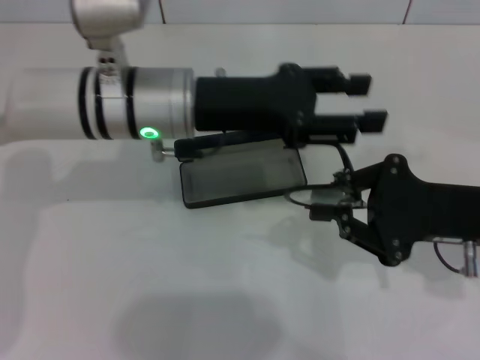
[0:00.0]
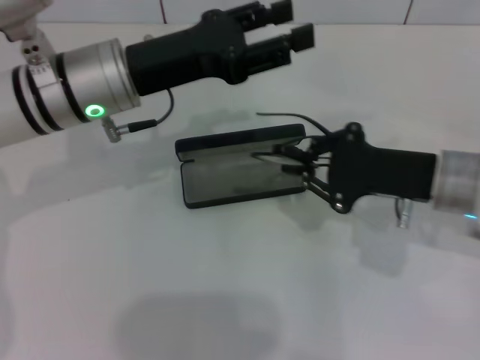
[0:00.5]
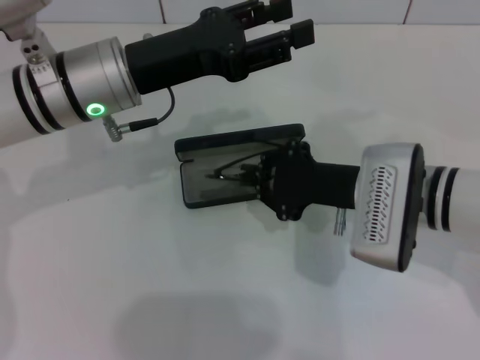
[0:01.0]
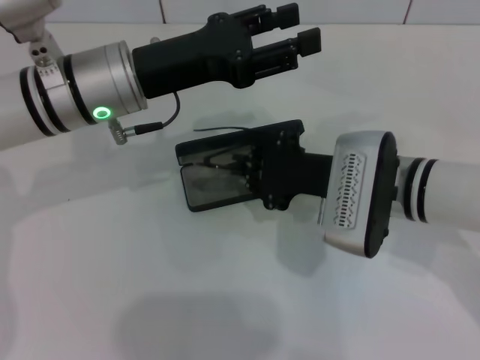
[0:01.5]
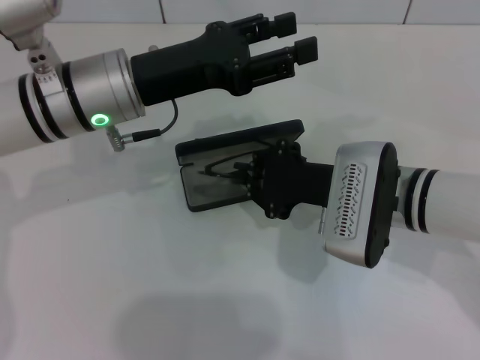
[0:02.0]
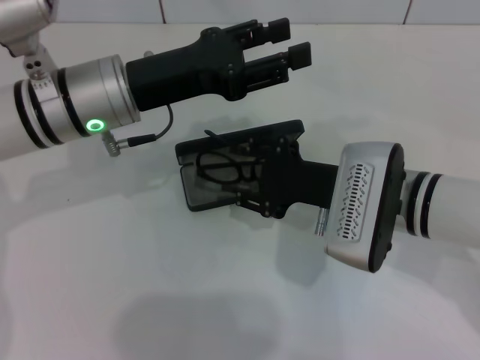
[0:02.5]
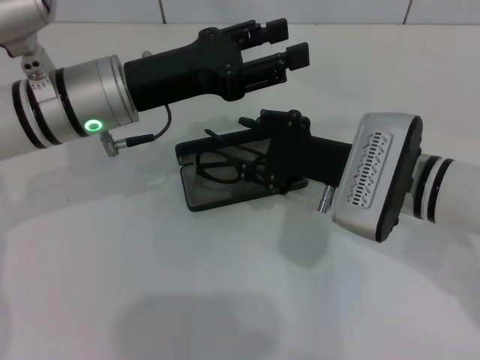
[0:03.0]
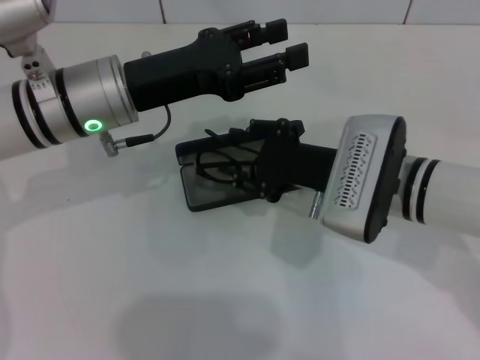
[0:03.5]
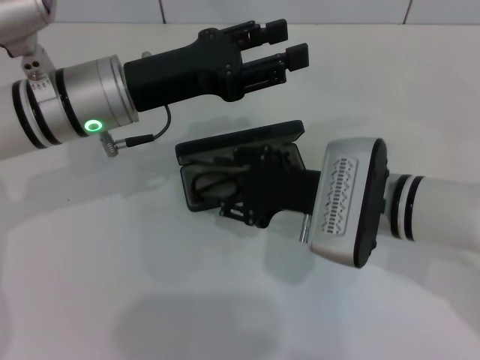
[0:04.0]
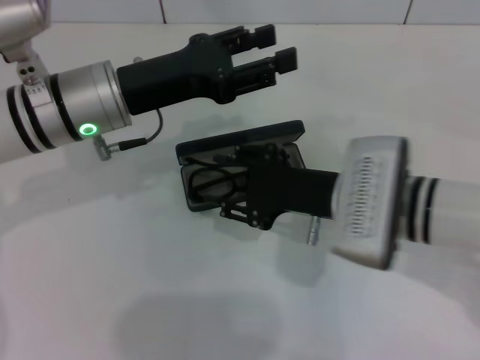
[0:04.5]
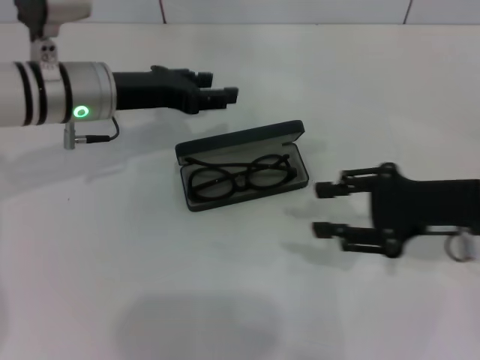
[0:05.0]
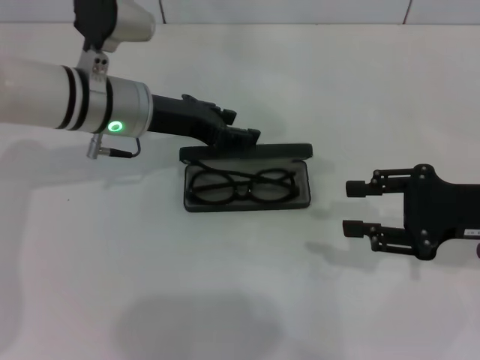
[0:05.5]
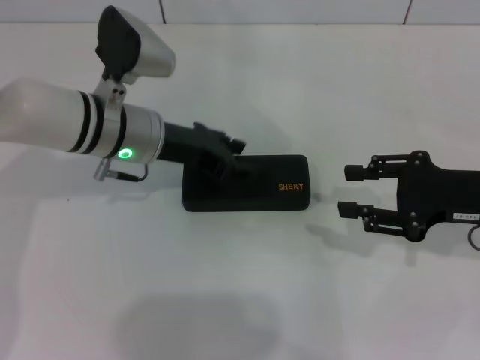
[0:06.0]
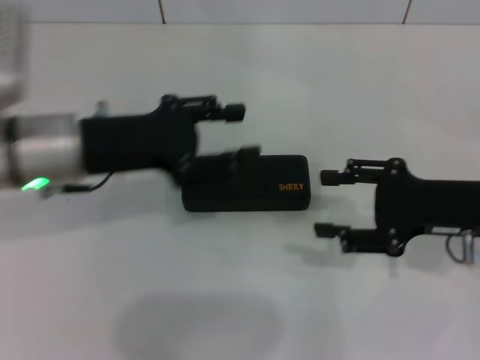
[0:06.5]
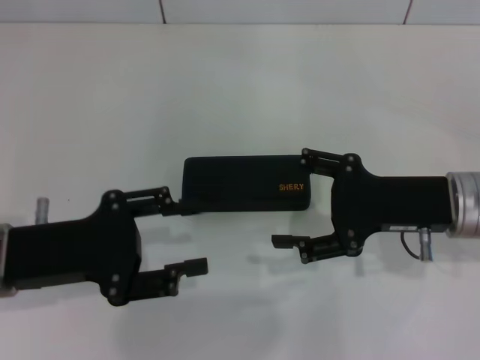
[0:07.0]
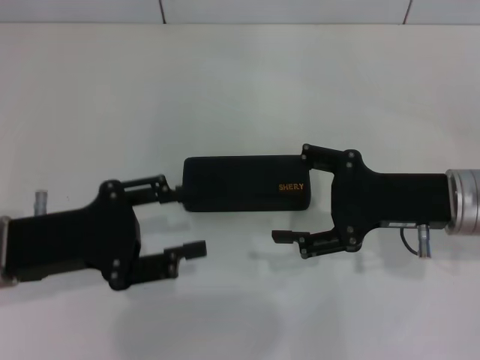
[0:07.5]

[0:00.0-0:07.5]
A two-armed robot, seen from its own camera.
Step, 0:00.0 to 0:04.0: Put the glasses into the case with your right hand.
Step, 0:04.5 to 0:05.5: Close the glasses case with your left hand.
0:00.0 to 0:02.0: The right gripper goes roughly 10 cm to the left.
0:02.0 to 0:04.0: The right gripper opens its fingers.
0:04.0 to 0:05.5: The right gripper is displaced to the right by approximately 15 cm.
0:05.5 to 0:07.5: The left gripper is displaced backward and to the left by some 20 cm. The right gripper goes about 5 cm to the left, and opens its fingers.
